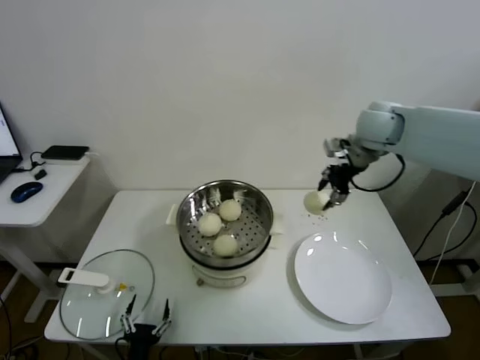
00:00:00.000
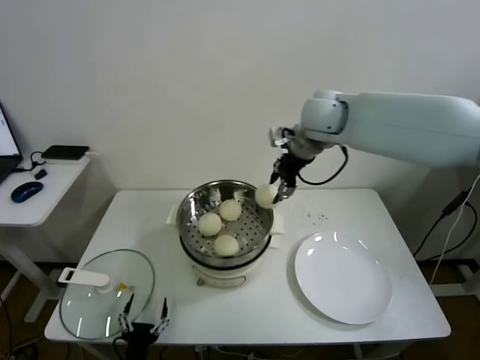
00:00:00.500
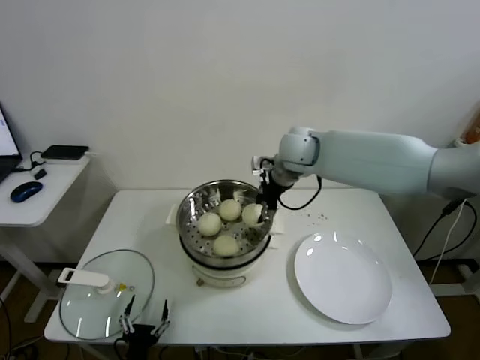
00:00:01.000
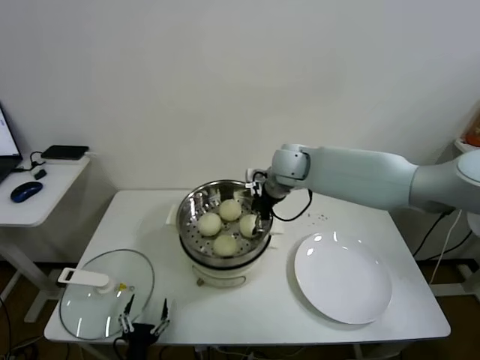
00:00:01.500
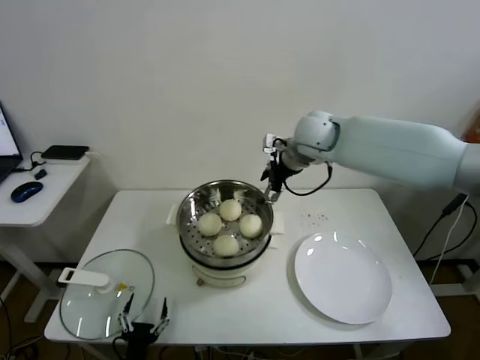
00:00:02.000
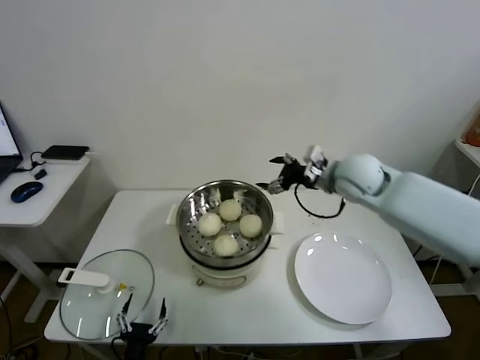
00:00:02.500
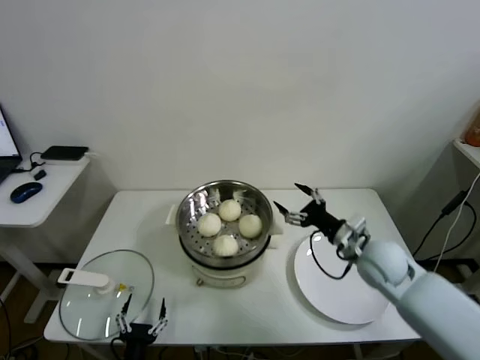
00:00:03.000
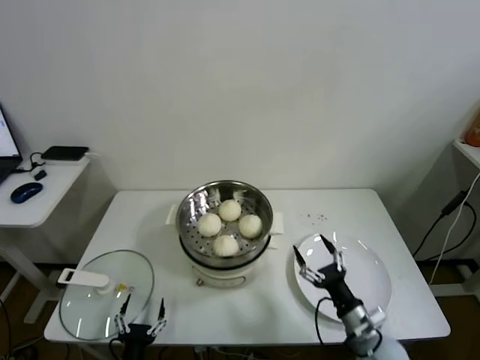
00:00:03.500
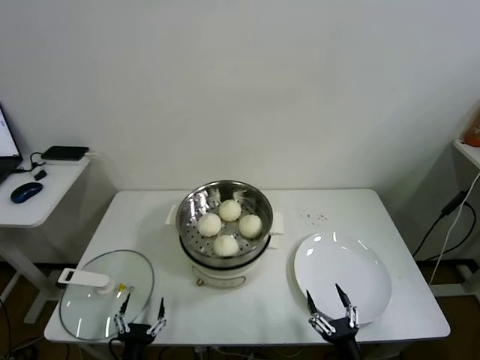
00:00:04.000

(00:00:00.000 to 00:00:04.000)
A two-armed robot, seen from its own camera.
Task of the whole recording: take steamed baozi put them in steamer.
Step, 00:00:00.000 - 00:00:01.500: Place the baozi on the steamer with right gripper.
00:00:00.000 - 00:00:02.000: The right gripper shifts about 15 cm to the left, and opens its fingers.
00:00:02.000 - 00:00:04.000: The right gripper is displaced backward and downward by about 60 cm.
